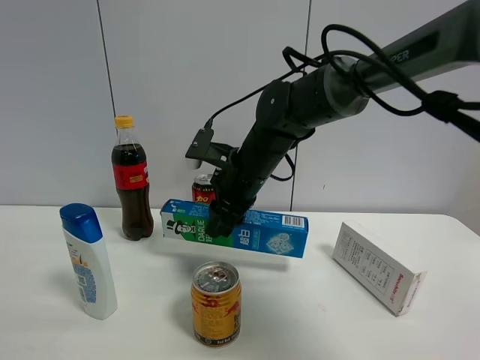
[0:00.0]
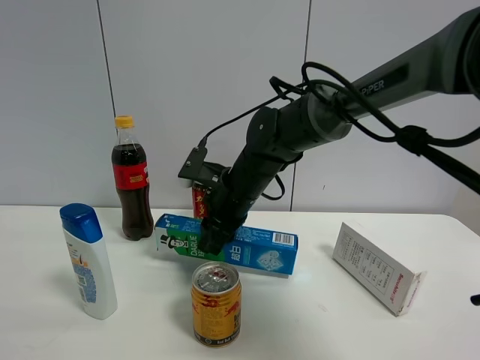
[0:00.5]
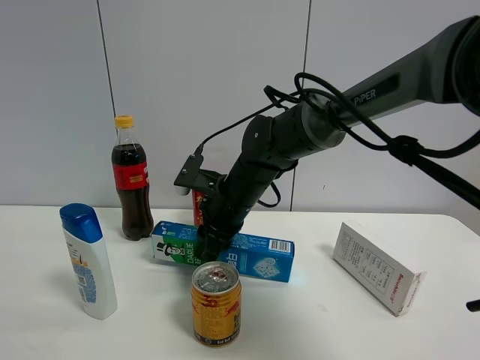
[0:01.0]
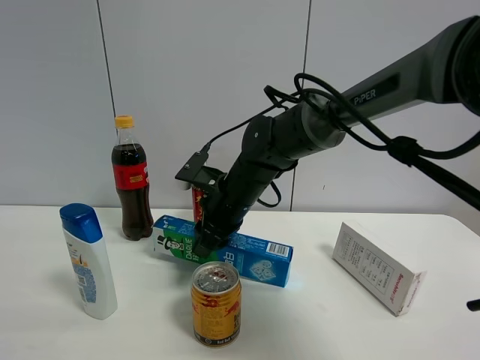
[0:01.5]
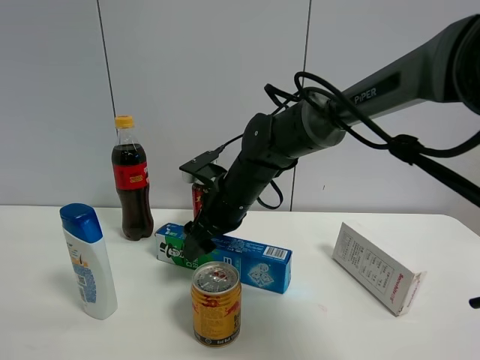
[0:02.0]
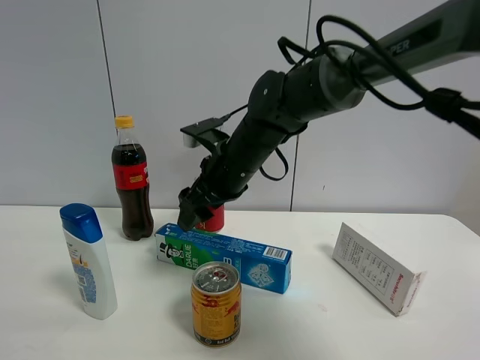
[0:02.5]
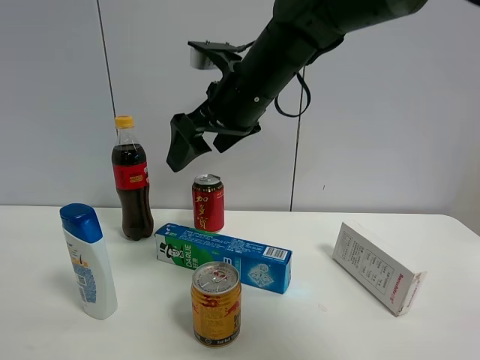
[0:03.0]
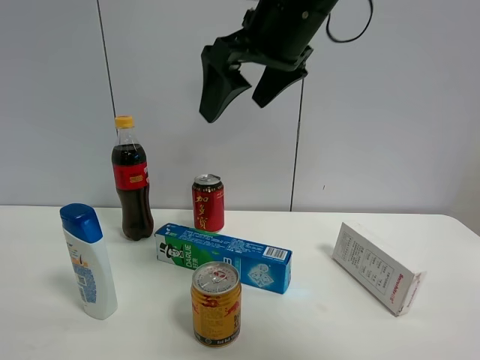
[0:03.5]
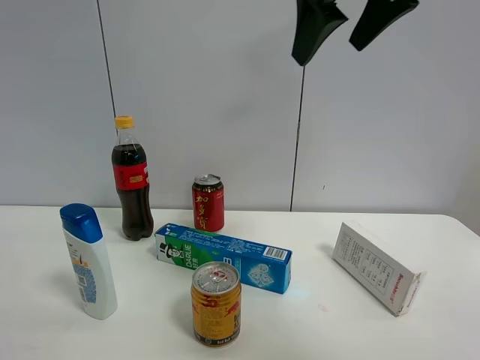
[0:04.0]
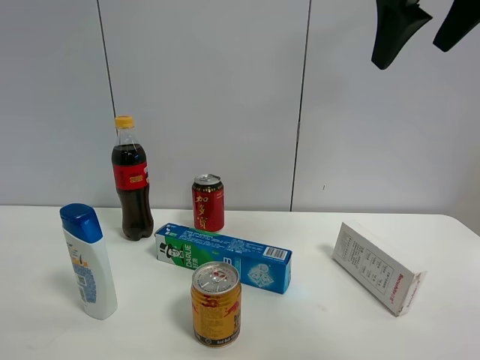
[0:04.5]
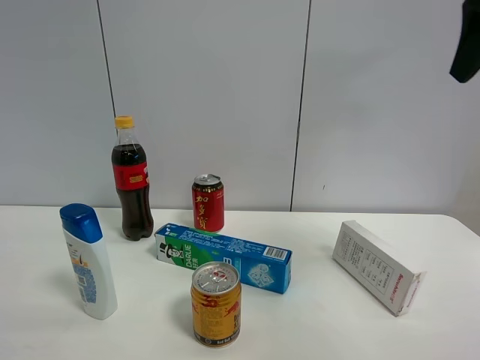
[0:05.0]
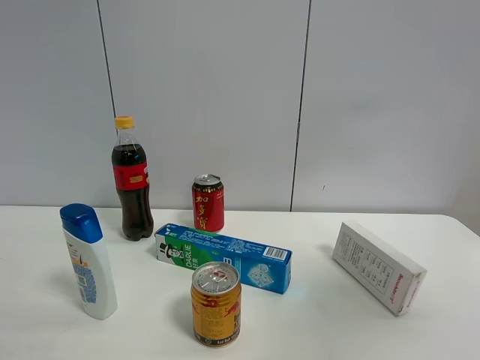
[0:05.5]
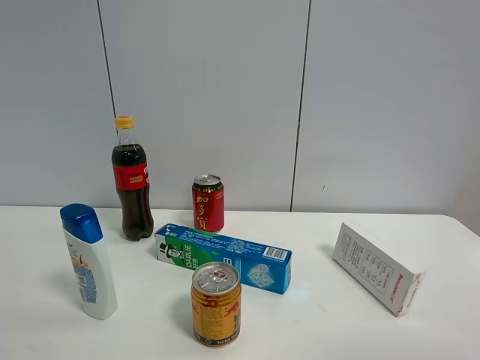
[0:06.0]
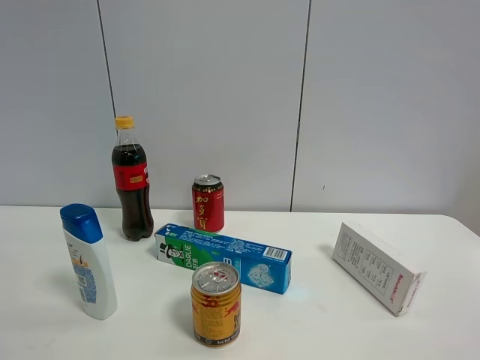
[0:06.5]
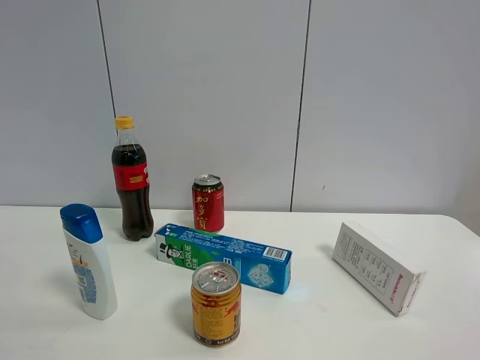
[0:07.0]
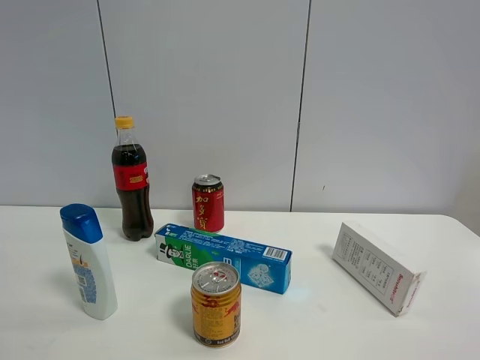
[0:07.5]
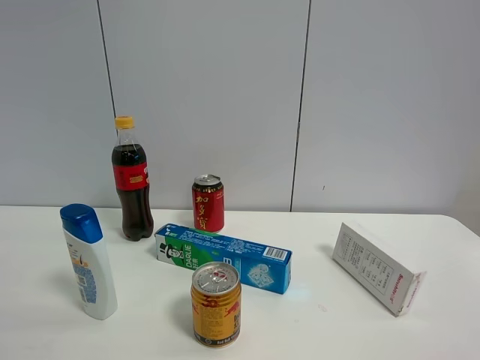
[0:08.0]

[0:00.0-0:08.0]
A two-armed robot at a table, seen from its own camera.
Task of the whole recording: the gripper move the object.
Step, 0:00.0 to 0:02.0: Place the toothpaste on the table with the right gripper.
0:00.0 to 0:02.0: The right gripper opens.
0:02.0 to 0:04.0: The right gripper shifts some 30 cm upward and to the right, and opens up.
0:04.0 to 0:06.0: The right gripper shifts approximately 35 cm backward and to the right.

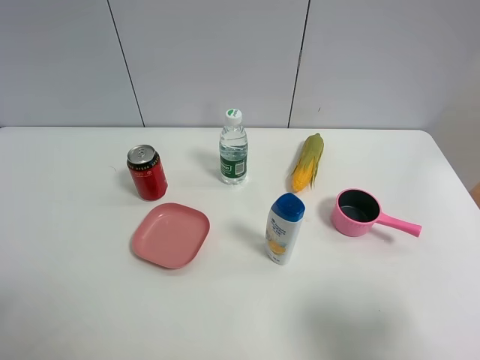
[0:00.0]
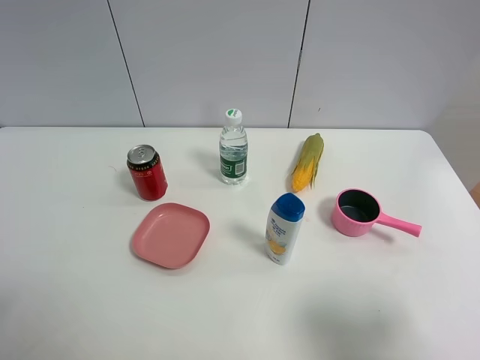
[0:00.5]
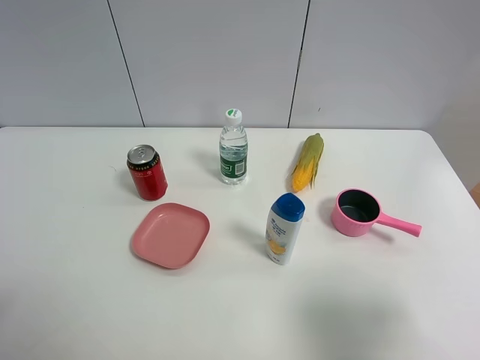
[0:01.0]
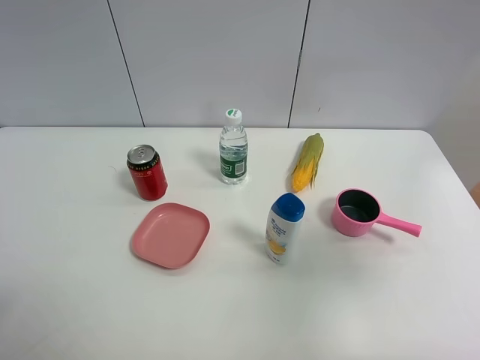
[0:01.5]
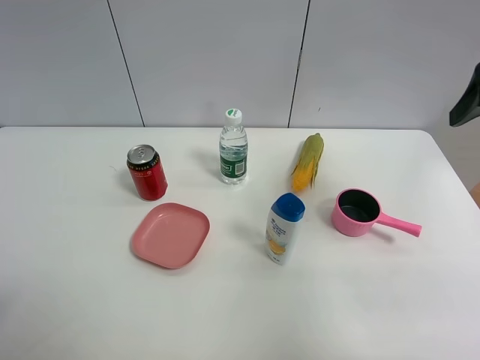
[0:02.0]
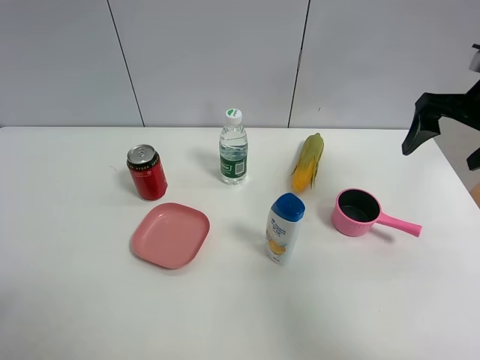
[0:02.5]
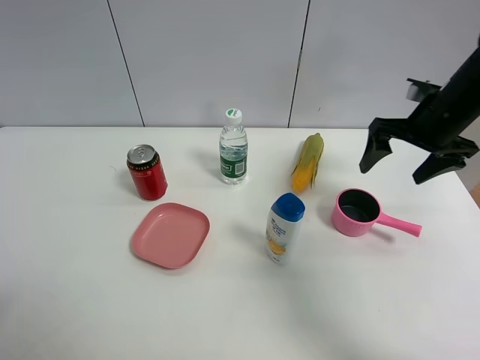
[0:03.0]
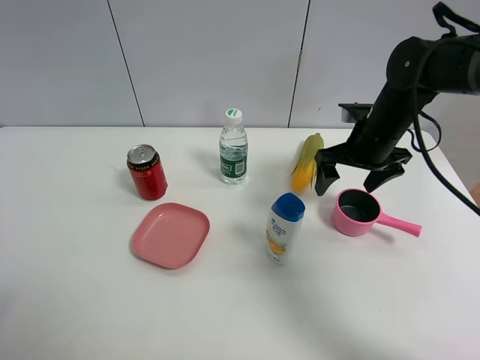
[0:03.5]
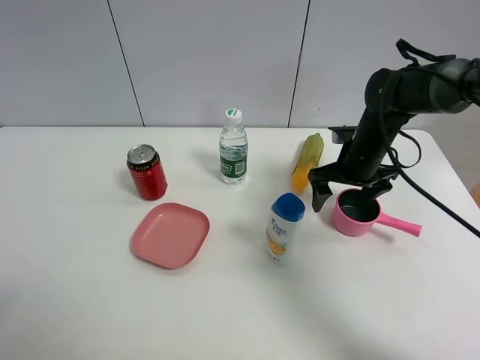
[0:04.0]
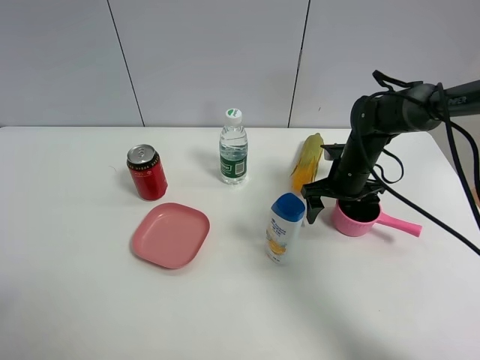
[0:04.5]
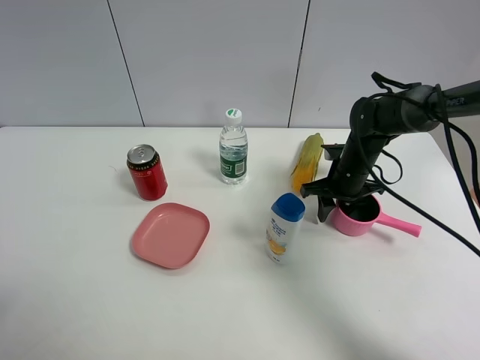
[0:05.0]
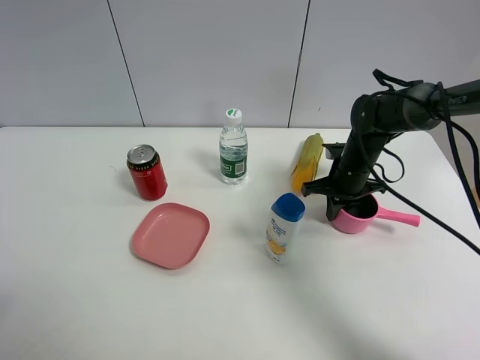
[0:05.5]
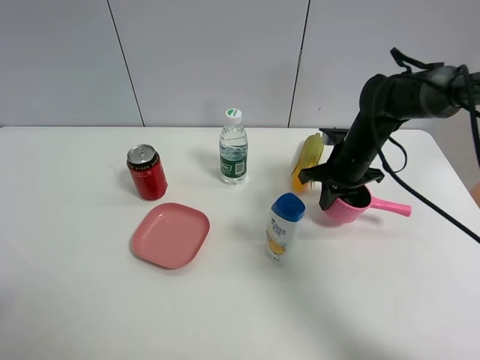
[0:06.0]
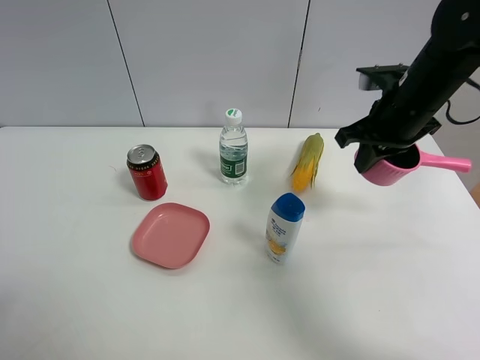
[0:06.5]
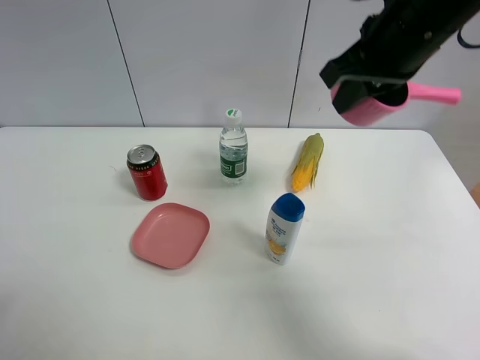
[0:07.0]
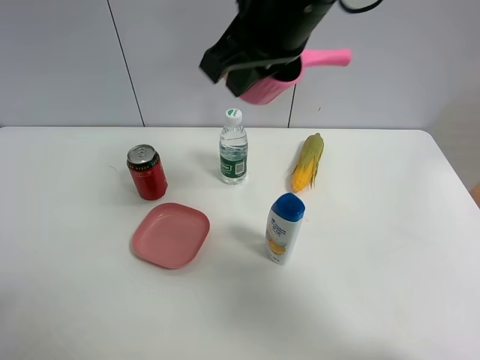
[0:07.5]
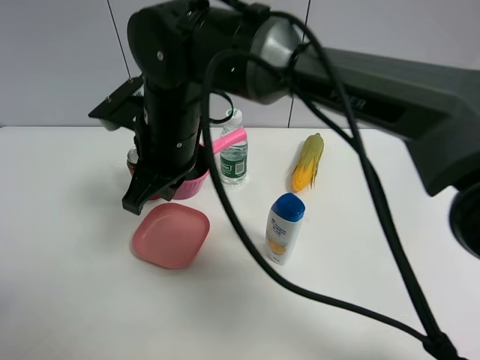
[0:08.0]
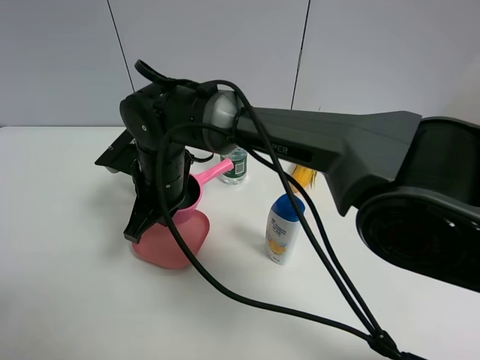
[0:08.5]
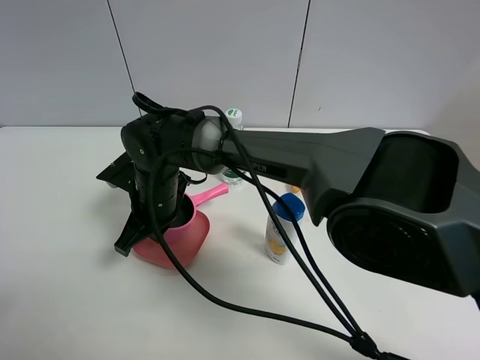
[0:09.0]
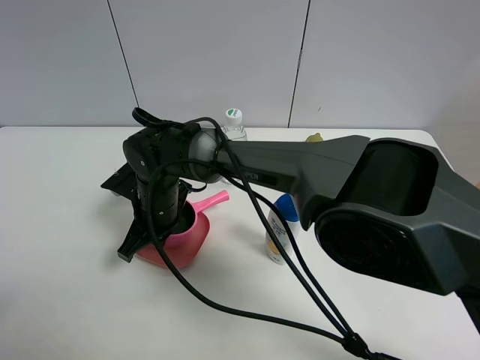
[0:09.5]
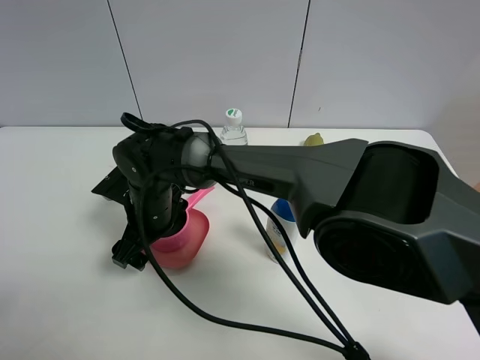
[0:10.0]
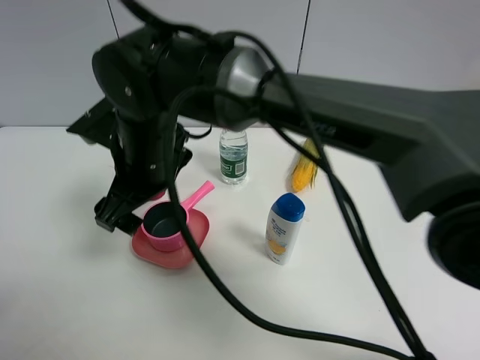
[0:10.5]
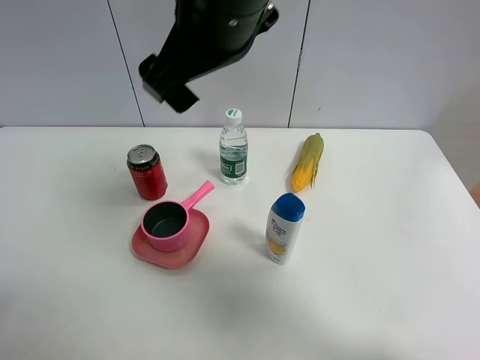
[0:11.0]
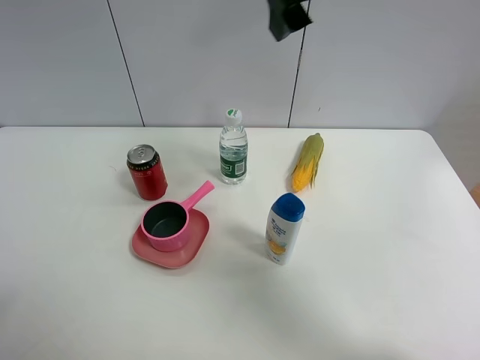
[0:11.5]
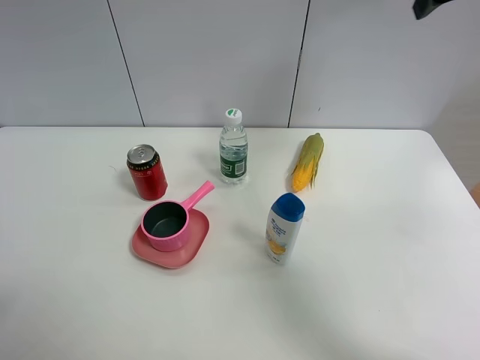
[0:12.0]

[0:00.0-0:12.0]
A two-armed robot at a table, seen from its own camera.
Task of the whole recording: the gripper move the object.
Step, 0:00.0 to 0:05.5: Grasp the pink pot with the right gripper.
Step, 0:06.0 to 0:10.0: Place the pink pot on the table with the right gripper.
0:00.0 to 0:02.0: The right gripper goes approximately 25 cm forward and upward.
0:02.0 to 0:04.0: The right gripper heads downward, forward and to the left, covering approximately 30 cm.
0:04.0 to 0:06.0: The right gripper closes up.
0:06.0 to 0:08.0: The right gripper heads to the left, covering about 30 cm.
0:08.0 to 0:10.0: The right gripper shifts about 10 cm downward, and opens its fingers.
0:10.0 to 0:12.0: The right gripper moves to the right and upward, approximately 50 cm.

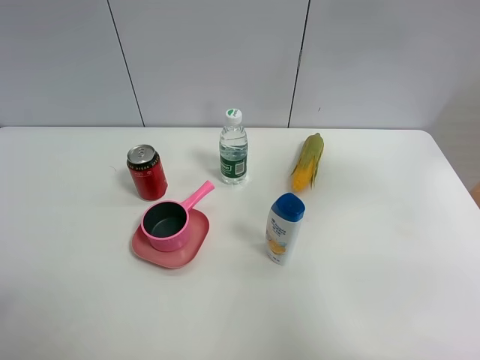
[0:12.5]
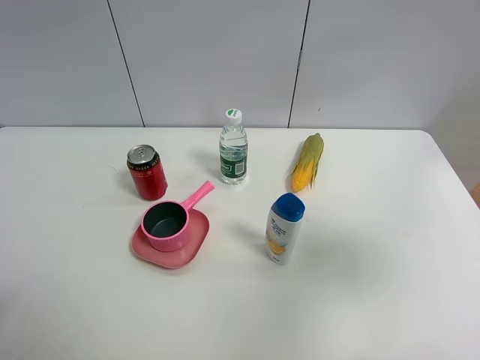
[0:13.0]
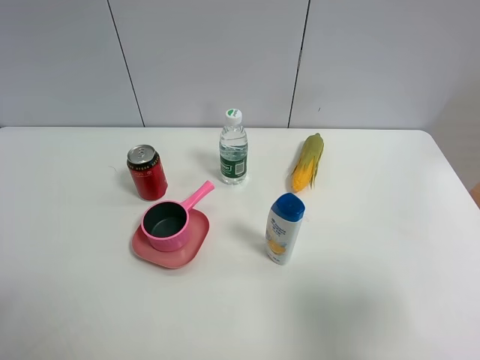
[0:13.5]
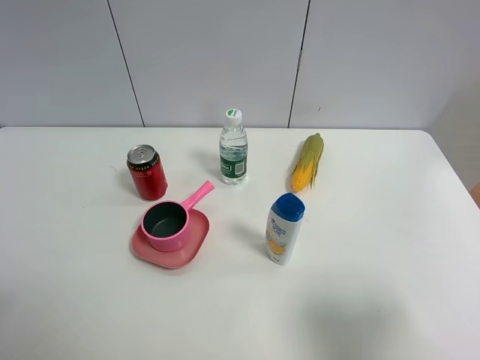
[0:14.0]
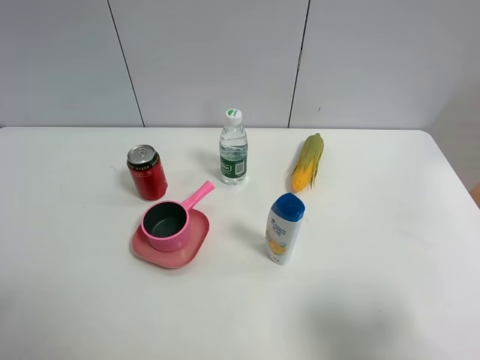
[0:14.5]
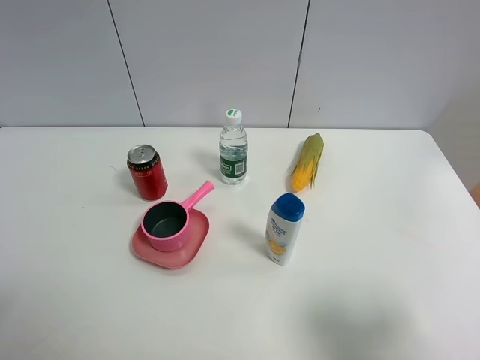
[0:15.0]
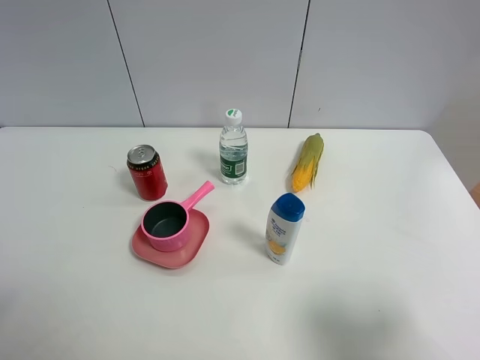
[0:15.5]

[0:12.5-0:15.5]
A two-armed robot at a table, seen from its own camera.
Task of the whole recording: the gripper move the object.
0:12.5 to 0:14.0: The right gripper travels backward and downward by some 30 cm.
0:14.0 to 0:15.5: Neither gripper changes place.

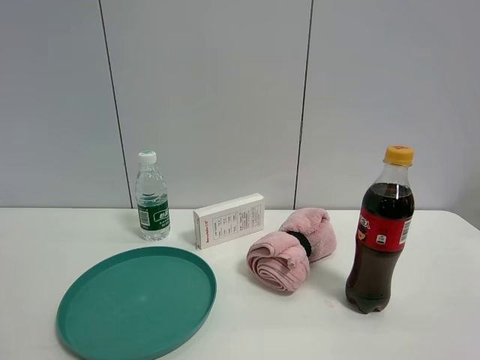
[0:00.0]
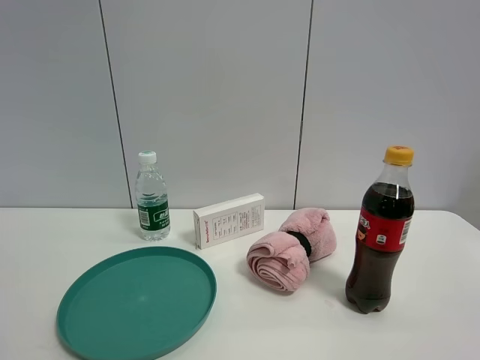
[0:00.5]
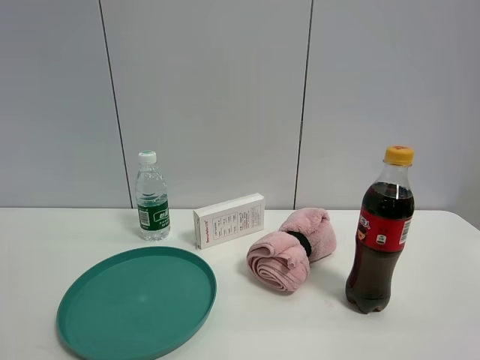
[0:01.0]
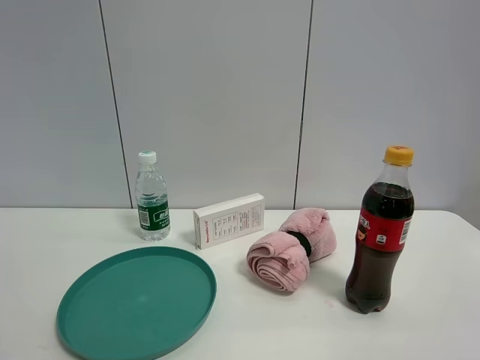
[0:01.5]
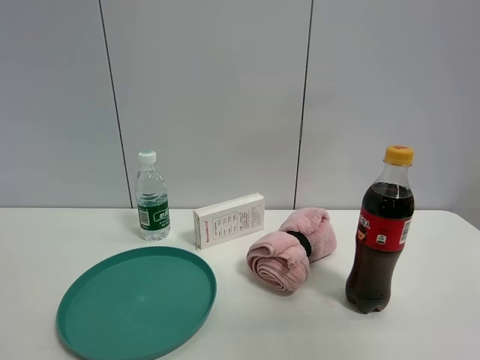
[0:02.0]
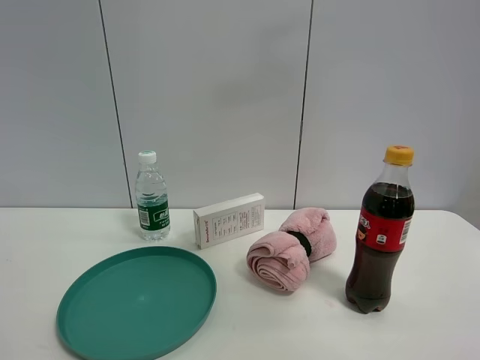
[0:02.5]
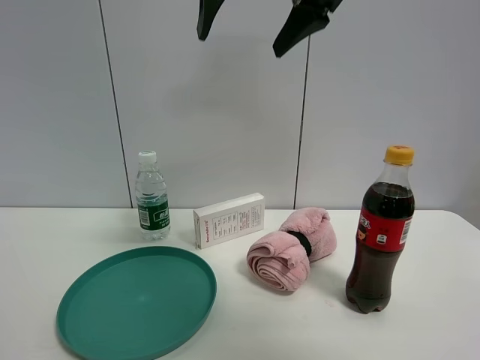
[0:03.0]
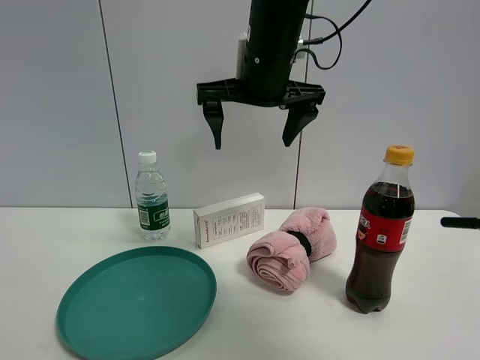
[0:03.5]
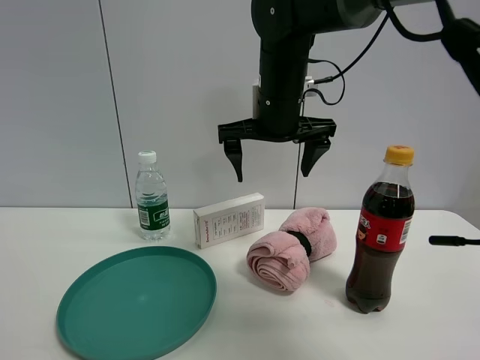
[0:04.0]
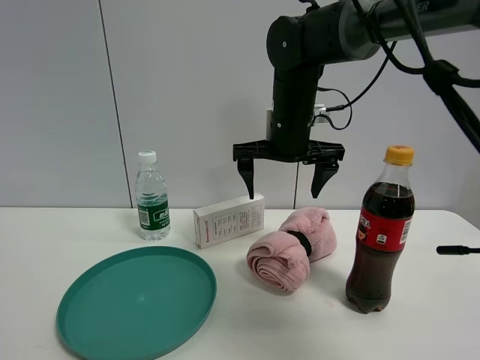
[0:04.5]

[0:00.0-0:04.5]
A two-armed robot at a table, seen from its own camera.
Task of the whole recording: the gripper move the object.
0:00.0 to 0:02.0: The right gripper shifts approximately 15 cm upward and forward.
0:02.0 to 0:04.5: The right gripper shifts approximately 40 cm forward, downward and to the left.
